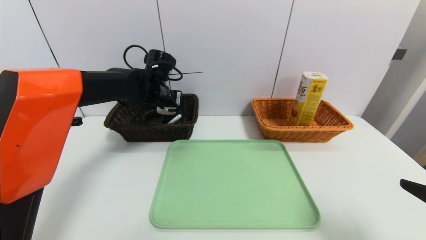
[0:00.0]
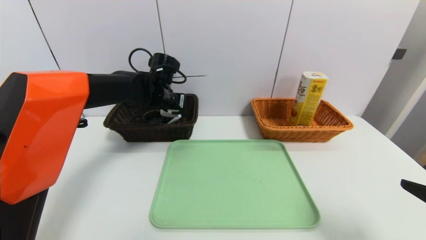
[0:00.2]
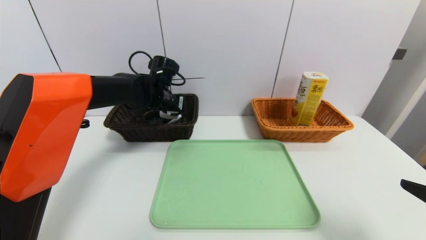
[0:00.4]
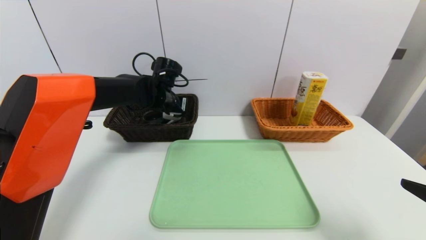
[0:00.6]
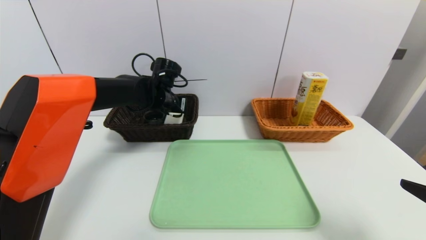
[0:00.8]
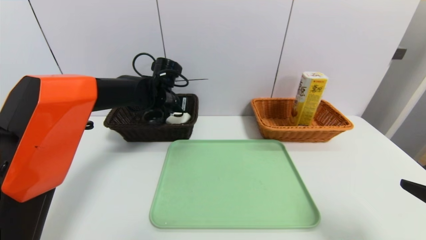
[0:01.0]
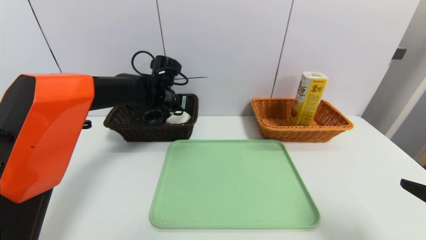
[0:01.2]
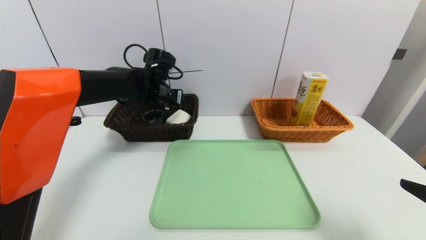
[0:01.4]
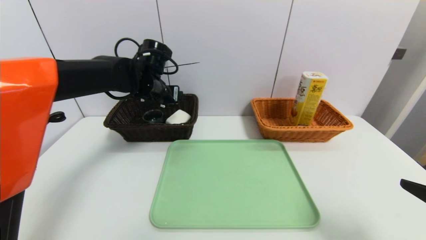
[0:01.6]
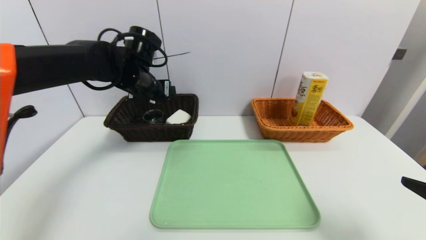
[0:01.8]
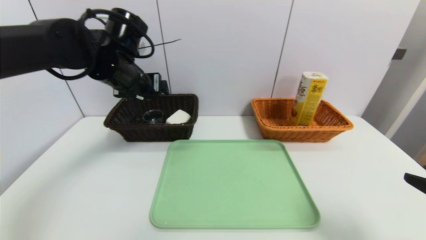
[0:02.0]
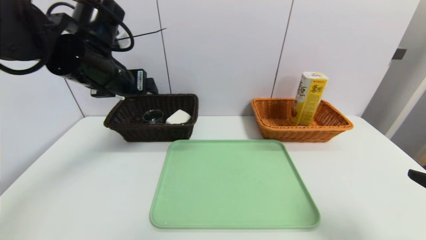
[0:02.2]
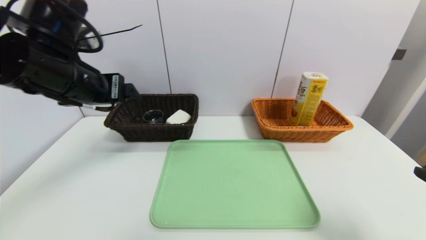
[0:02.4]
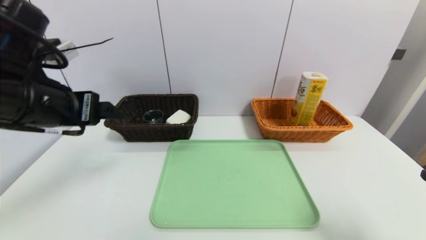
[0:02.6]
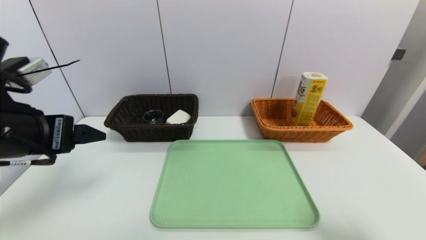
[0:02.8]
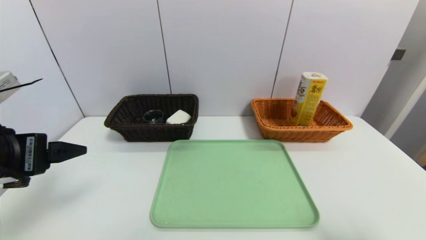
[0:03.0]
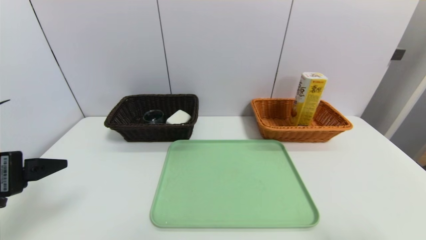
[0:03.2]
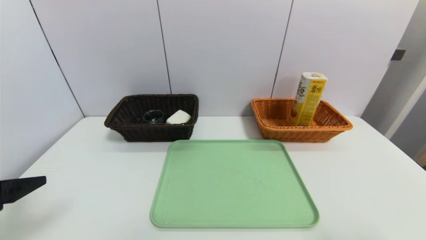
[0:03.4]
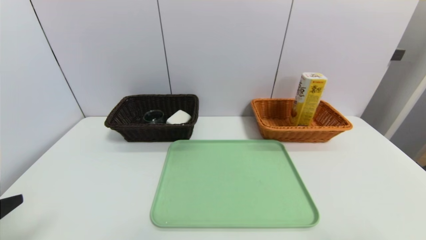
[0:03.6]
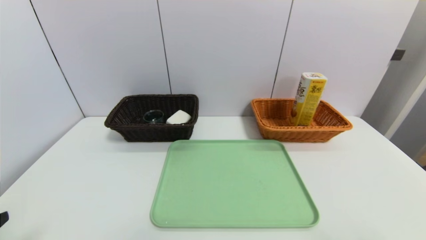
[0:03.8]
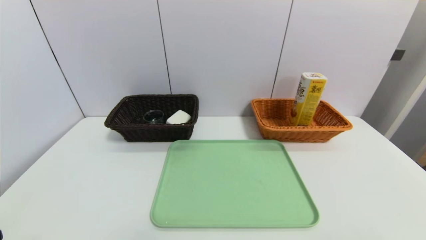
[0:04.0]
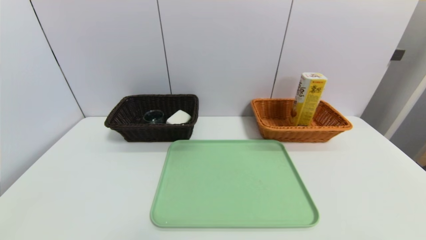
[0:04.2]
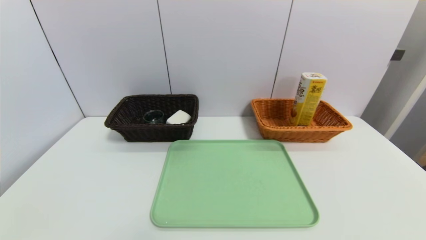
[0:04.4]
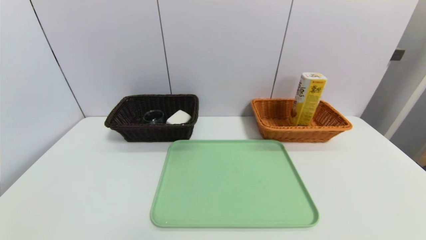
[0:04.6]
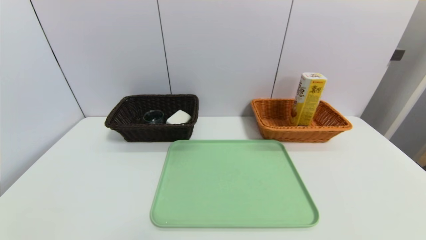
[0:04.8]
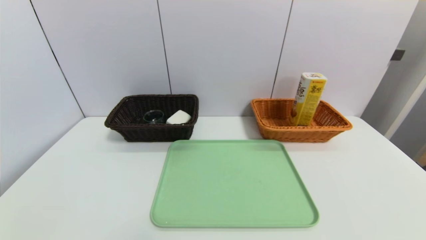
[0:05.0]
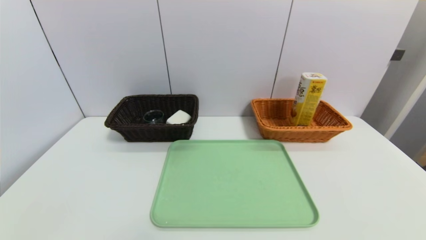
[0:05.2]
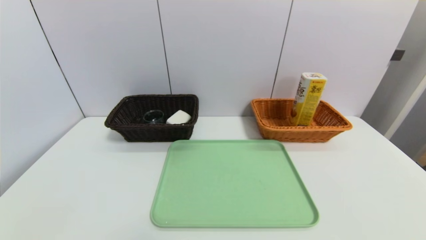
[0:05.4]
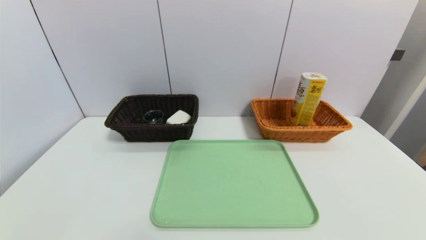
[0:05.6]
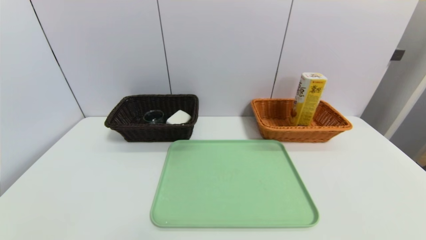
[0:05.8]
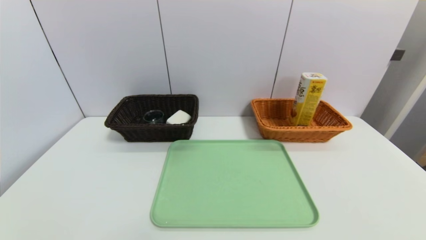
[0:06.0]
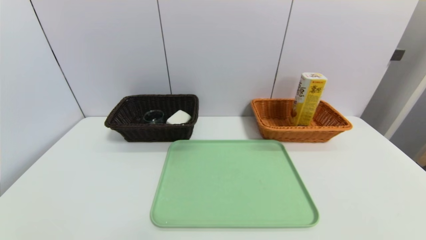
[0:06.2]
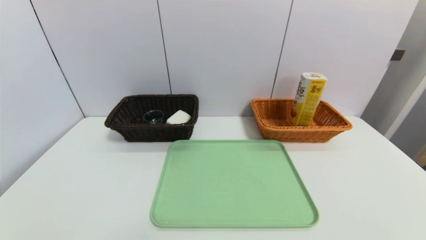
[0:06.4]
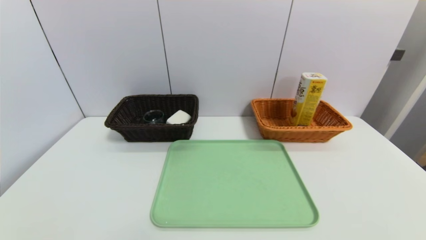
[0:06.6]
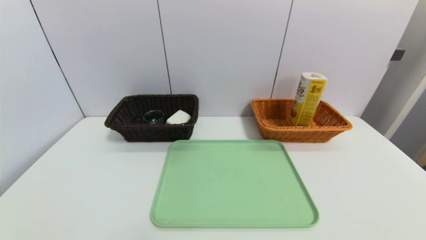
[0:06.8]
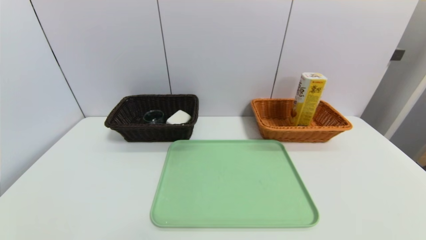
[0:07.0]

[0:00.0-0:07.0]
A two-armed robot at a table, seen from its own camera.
Task of the whole recording: place the food in the right basket with the right gripper, and place the non food items in the left basket with the left gripper.
0:00.0 to 0:01.4: The grippers stay close to where they were, moving slightly.
0:01.4 to 0:02.8: The left gripper travels backward by some 25 cm.
0:02.8 to 0:04.2: The left gripper goes approximately 20 cm backward and downward. The right gripper is displaced backward by approximately 5 cm.
